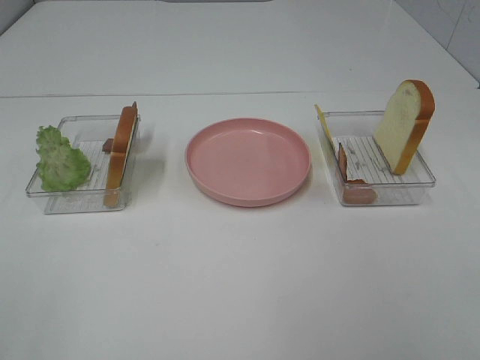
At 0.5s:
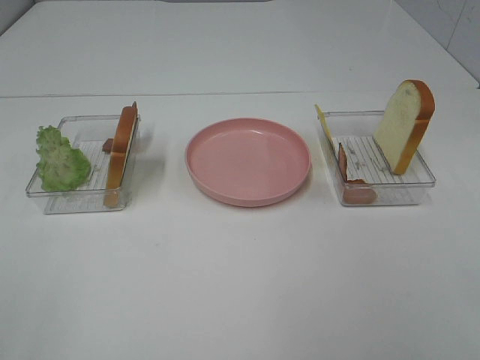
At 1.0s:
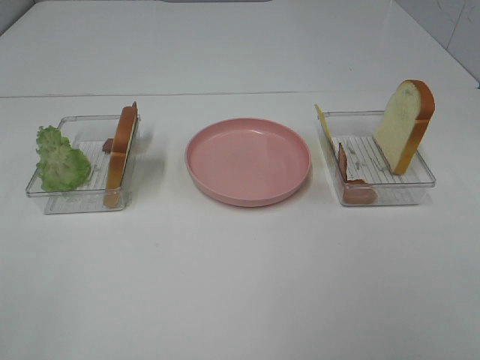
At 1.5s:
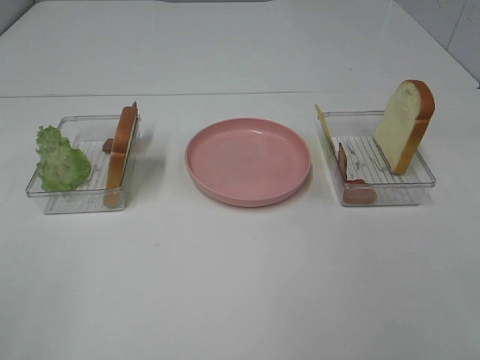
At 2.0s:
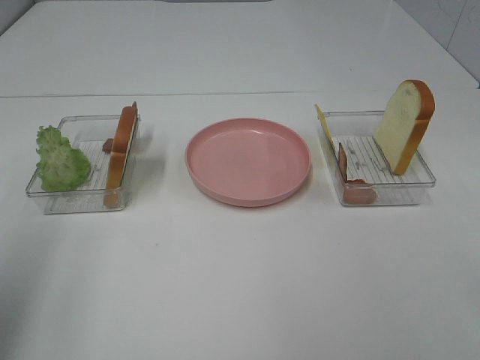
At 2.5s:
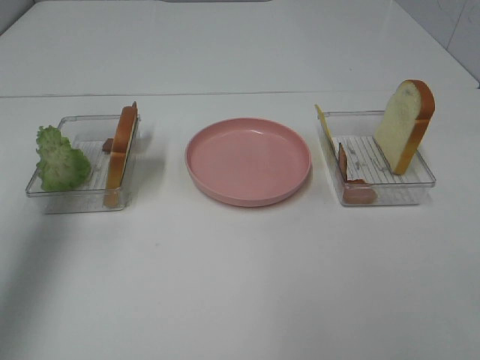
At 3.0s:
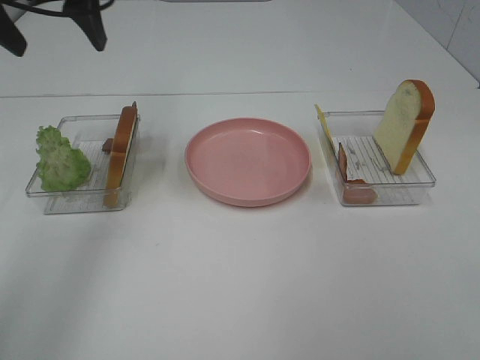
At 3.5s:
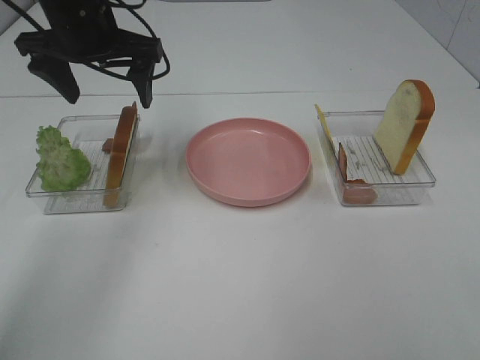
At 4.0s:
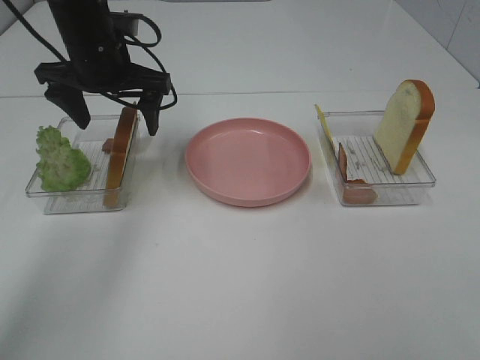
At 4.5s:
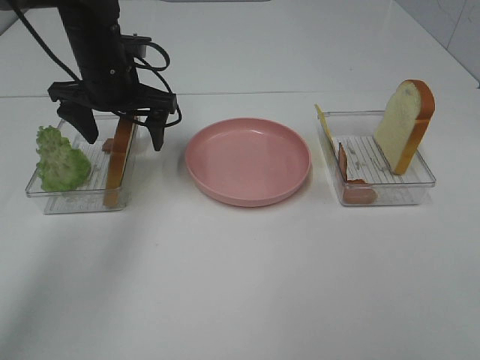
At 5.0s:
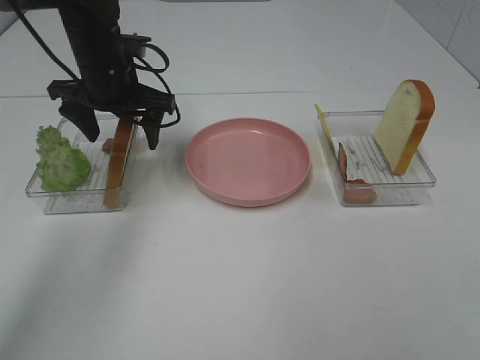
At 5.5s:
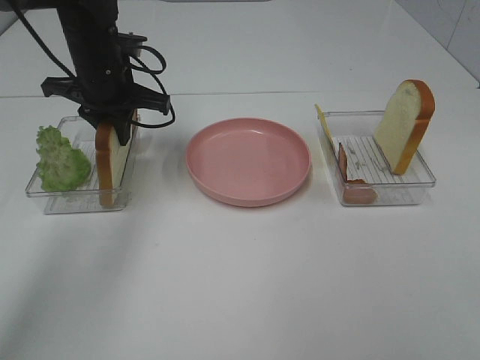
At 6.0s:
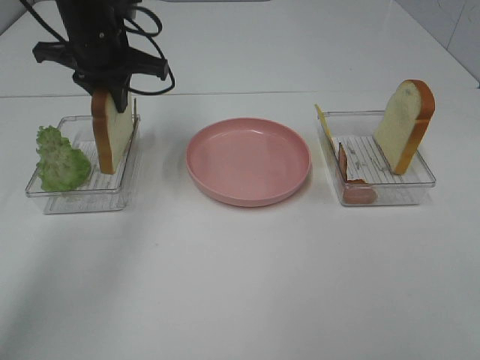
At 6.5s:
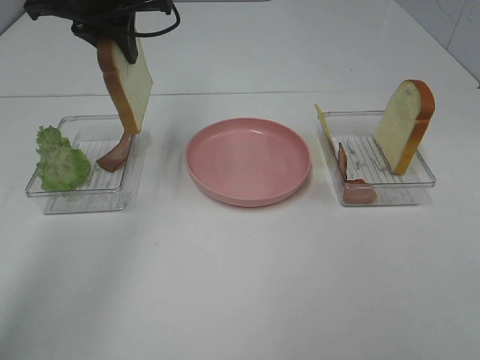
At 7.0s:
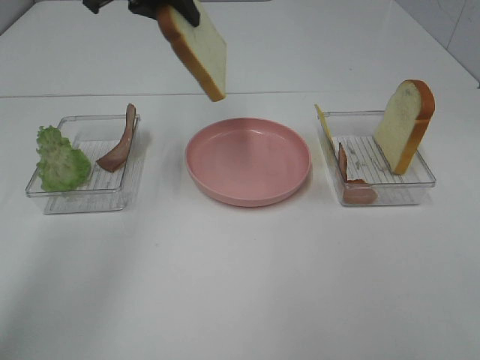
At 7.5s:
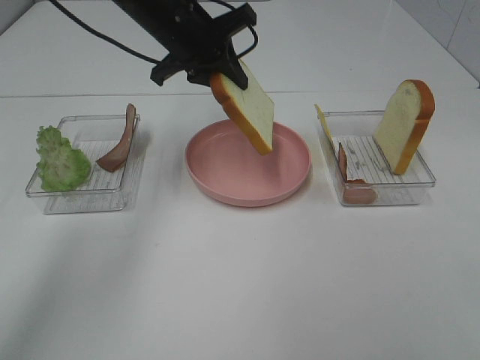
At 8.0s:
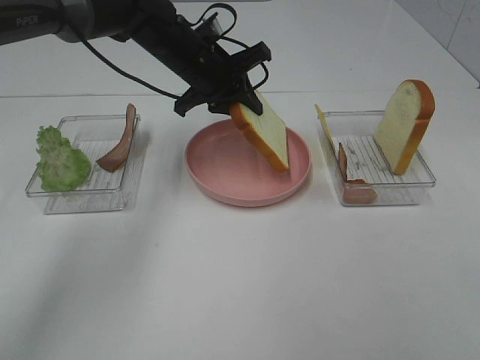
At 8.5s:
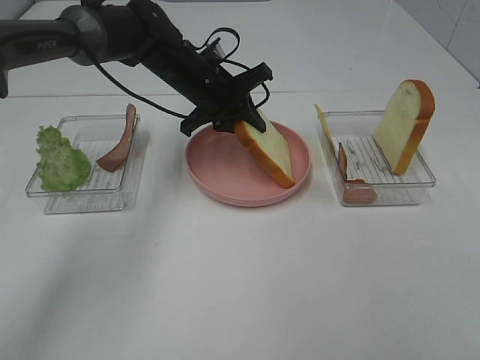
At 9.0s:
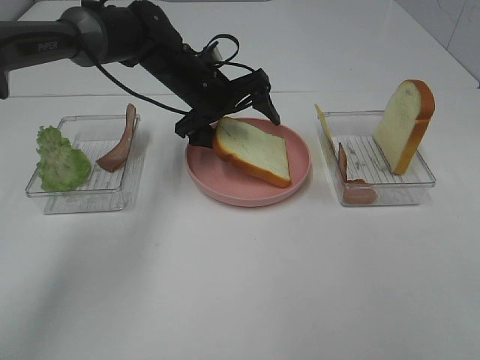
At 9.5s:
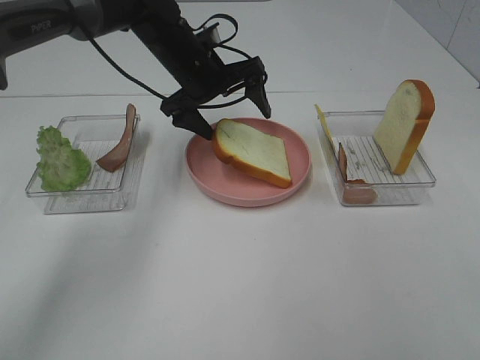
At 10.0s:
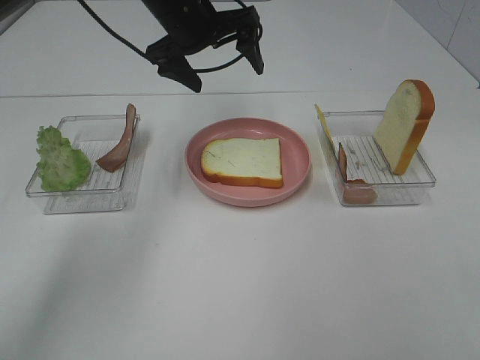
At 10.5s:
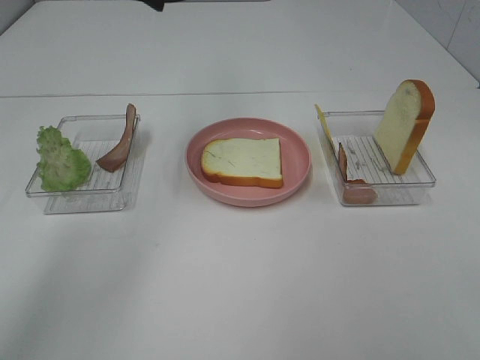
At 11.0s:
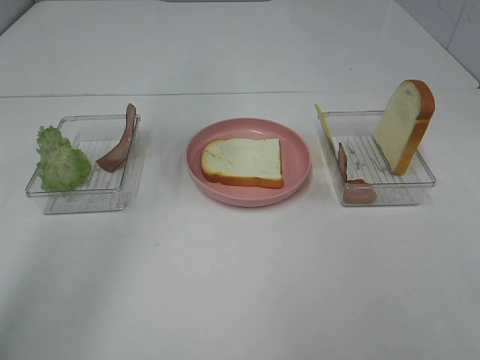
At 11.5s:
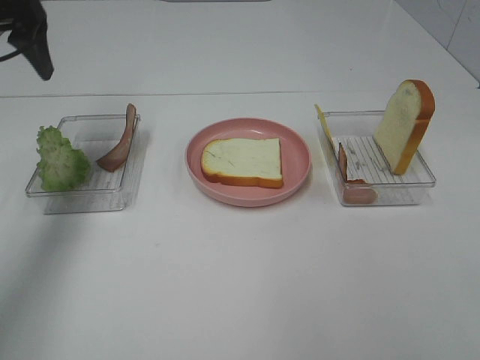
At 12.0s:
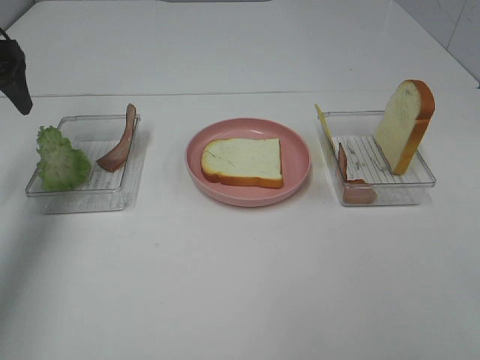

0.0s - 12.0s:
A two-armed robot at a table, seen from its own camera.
Task of the whole recording: Make sandwiches.
Step, 0.0s - 5.5s: Left hand:grab the bread slice.
Step, 6.0s - 9.5s: Left hand:place the bread slice on the plate.
0.0s - 2.0s: The left gripper moves forward, about 15 cm.
2.0s - 4.0s: The left gripper travels forward, to the right and downward by some 35 cm.
4.0s - 6.0s: The left gripper closes up.
6.0s - 8.0s: The left gripper travels to the right and downward by some 10 cm.
8.0s - 10.0s: The left gripper heads upward, covering some 10 cm, and opens up.
10.0s - 12.0s: The left gripper is displaced to the left by approximately 25 cm.

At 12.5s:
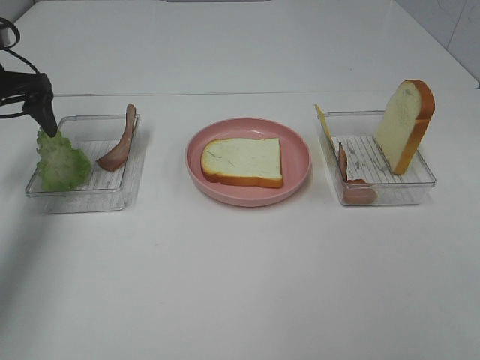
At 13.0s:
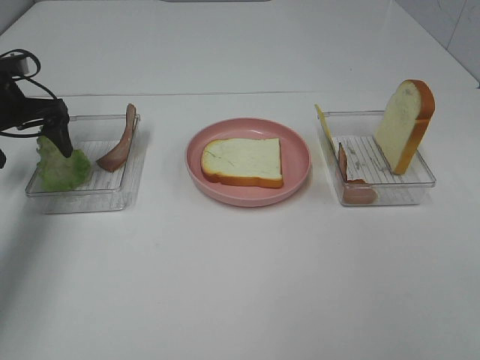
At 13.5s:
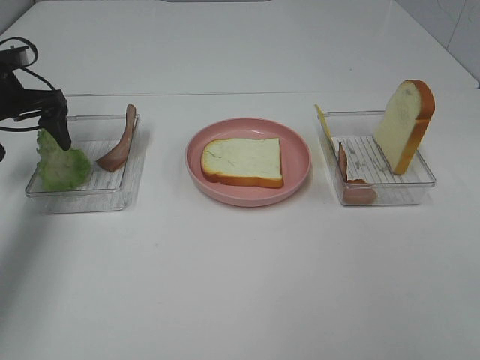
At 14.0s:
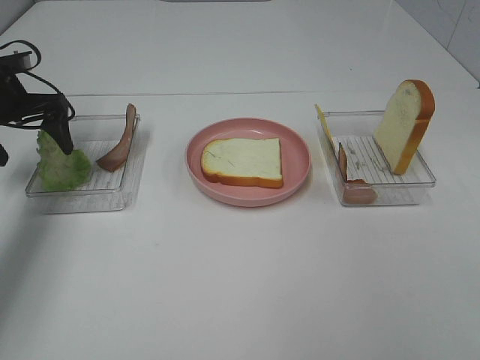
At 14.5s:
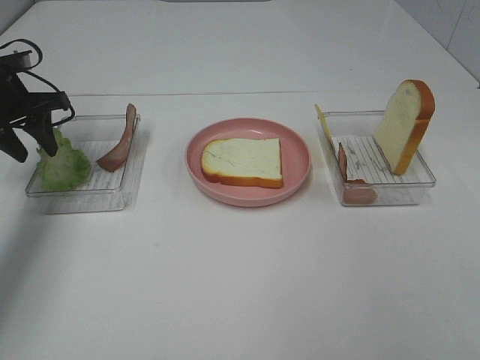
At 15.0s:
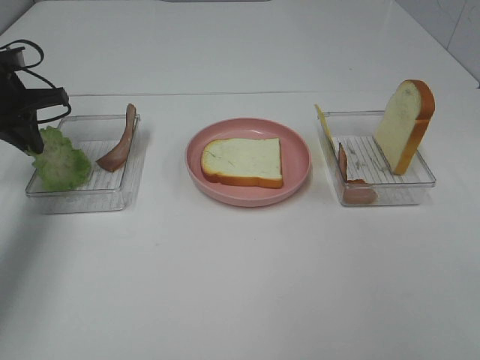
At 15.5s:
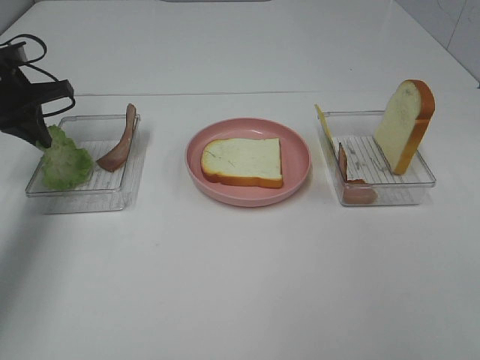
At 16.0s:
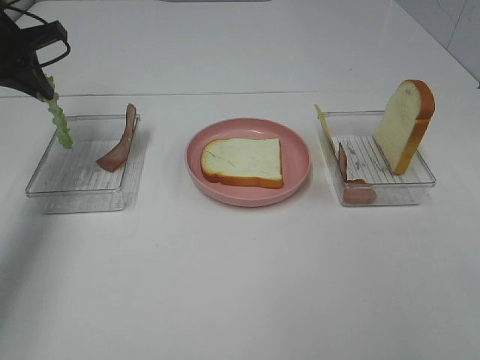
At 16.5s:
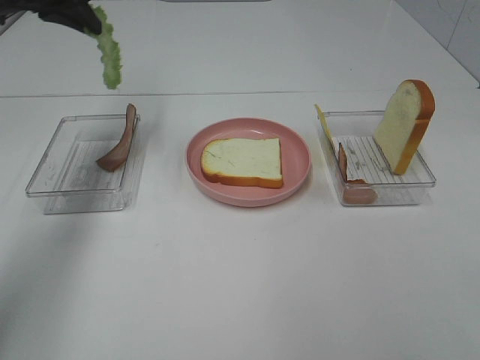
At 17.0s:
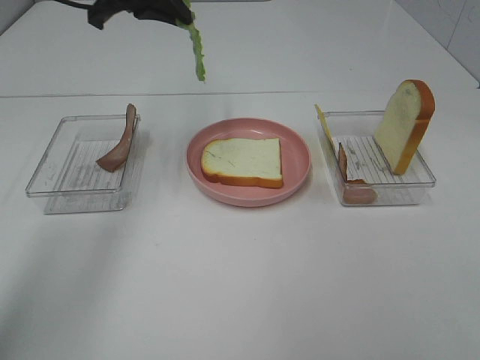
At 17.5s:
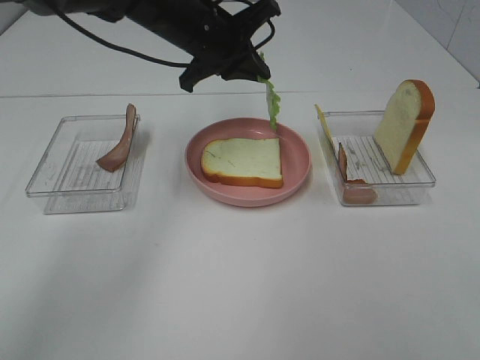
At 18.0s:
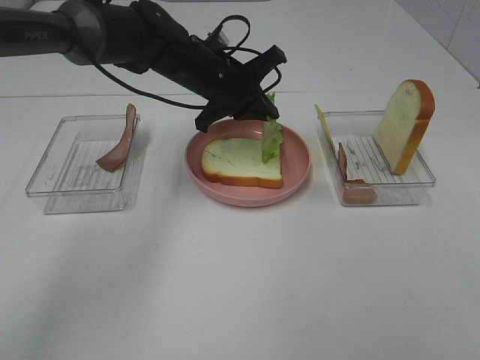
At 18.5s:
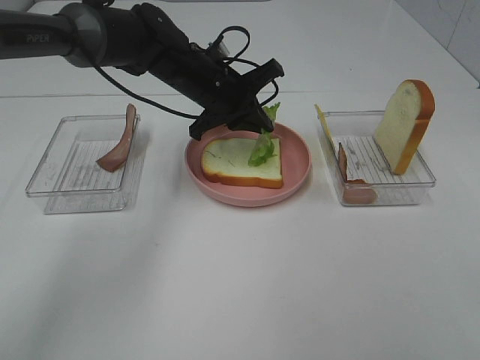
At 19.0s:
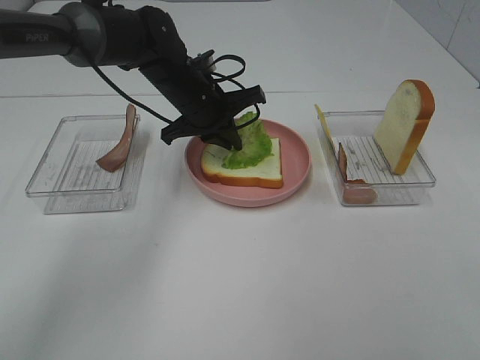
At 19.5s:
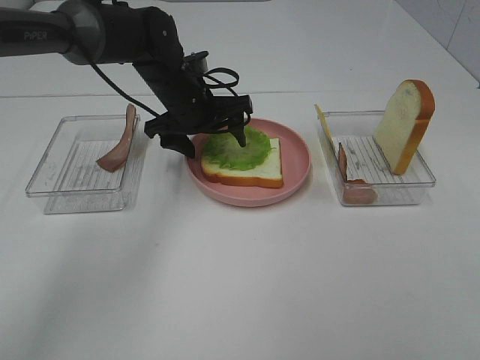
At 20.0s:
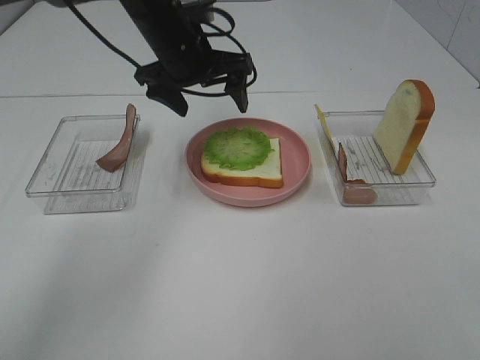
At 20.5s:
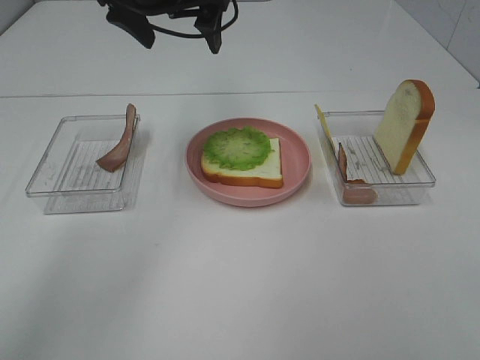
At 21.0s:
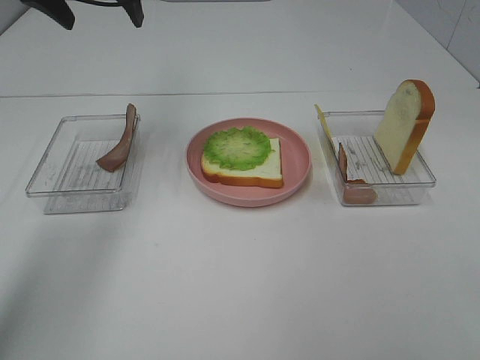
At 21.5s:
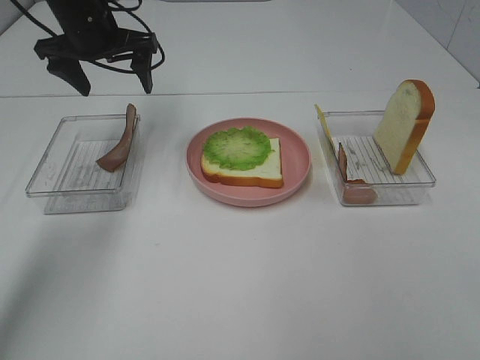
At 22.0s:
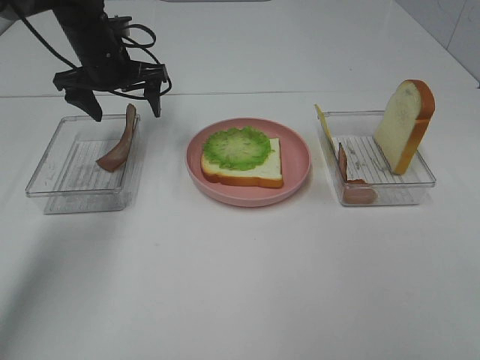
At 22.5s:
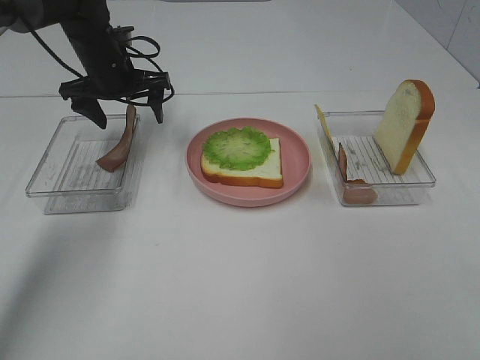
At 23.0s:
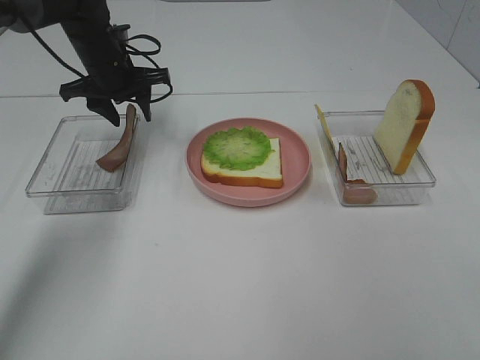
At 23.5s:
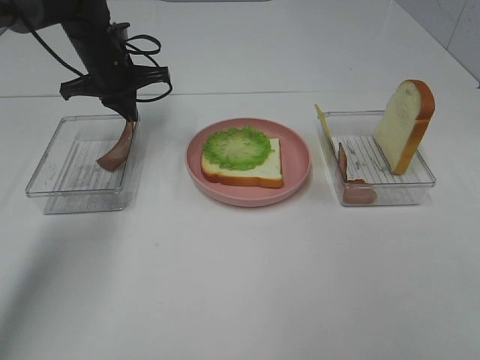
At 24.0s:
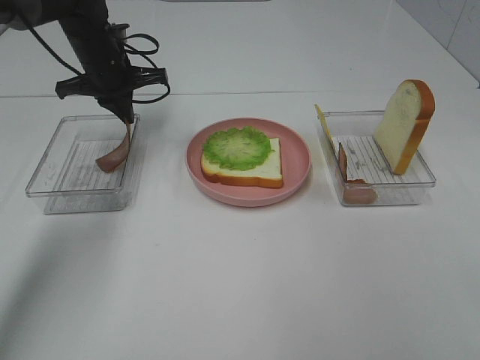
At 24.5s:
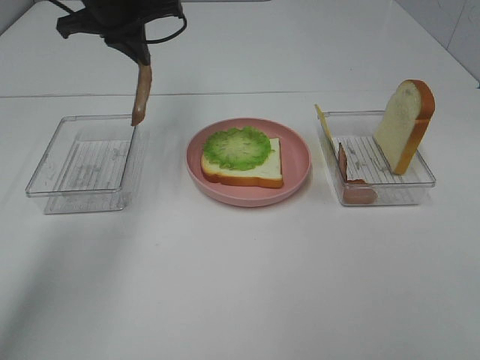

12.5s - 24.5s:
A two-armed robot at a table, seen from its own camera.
Task of the whole recording: Make sandwiches.
Step, 12.5s - 14.5s: Left hand:grab the lettuce slice.
Step, 15.0s - 20.0s: Left hand:place the lettuce slice on the bread slice.
Step, 20.5s - 23.5s: Left hand:grab the bacon.
12.5s - 14.5s: The left gripper closes its fingers.
14.5s - 16.5s: The left gripper heads upward and to the right, covering some 15 cm, and closes its fingers.
16.5s - 18.5s: The left gripper travels to the right and downward by some 25 cm.
18.5s - 20.5s: The left gripper travels upward by roughly 15 cm, and opens its fingers.
20.5s - 22.5s: The left gripper travels downward, to the left and forward by about 20 cm.
22.5s - 24.5s: The left gripper is displaced upward by about 10 cm, and closes.

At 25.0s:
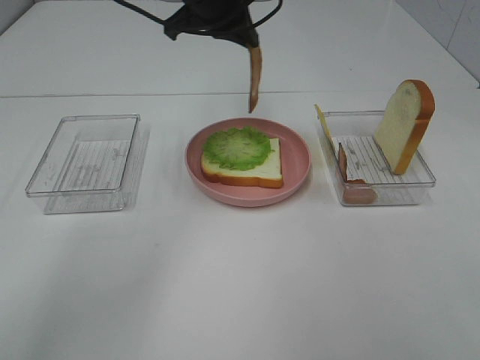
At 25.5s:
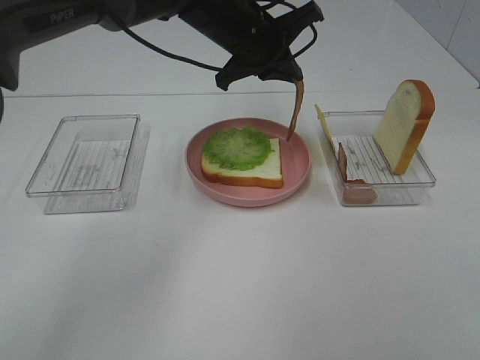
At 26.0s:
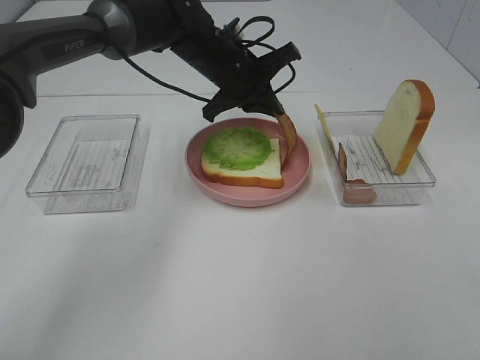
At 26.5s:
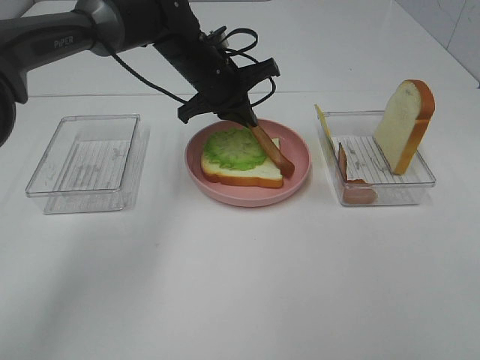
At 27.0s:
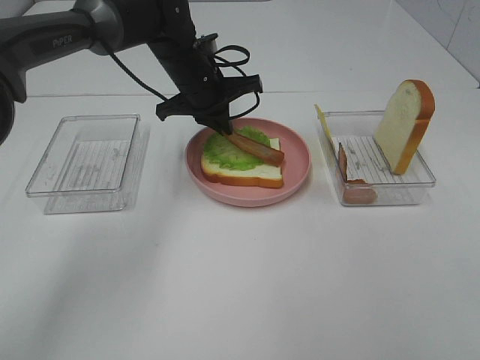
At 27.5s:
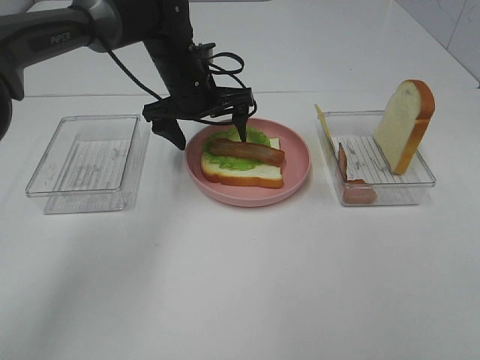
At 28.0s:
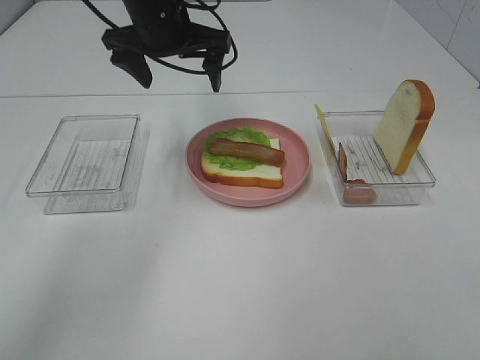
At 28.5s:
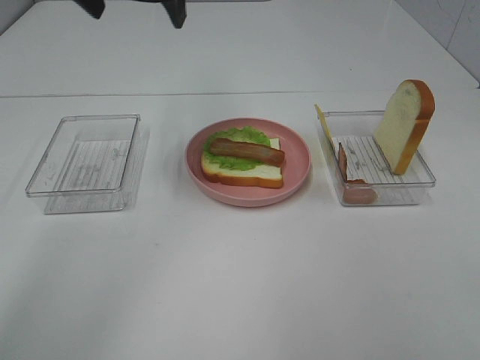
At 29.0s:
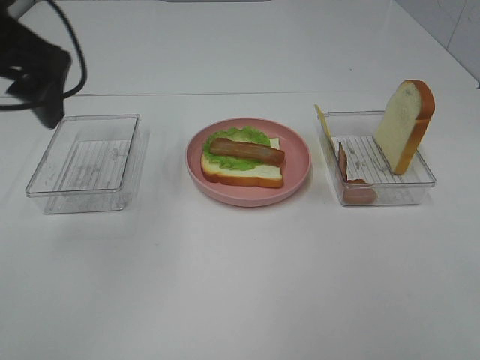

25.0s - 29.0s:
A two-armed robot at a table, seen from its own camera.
Task of the whole recording: Make sandwiches.
Step, 25.0s - 27.0s: Left hand:place bacon on lettuce slice.
25.0s - 27.0s: The left gripper is displaced downward by roughly 15 cm.
27.0s - 29.0s: The left gripper is displaced backward, upward and to the left by some 30 cm, and opens.
